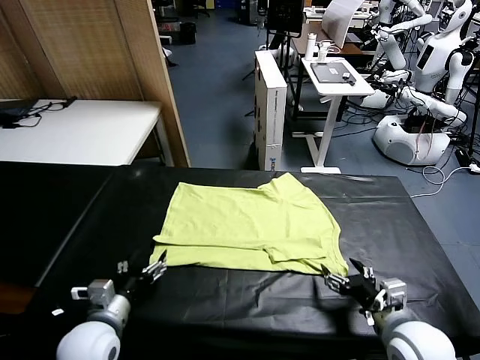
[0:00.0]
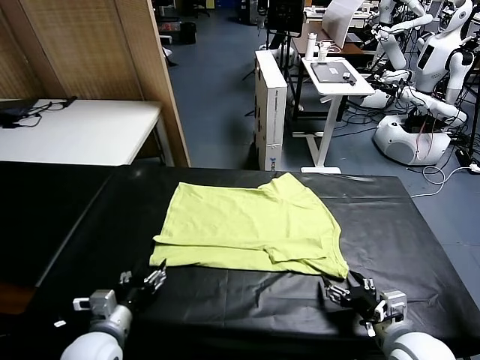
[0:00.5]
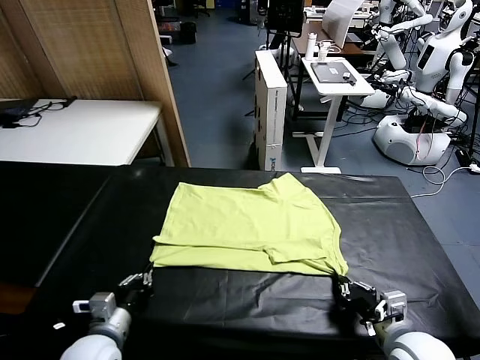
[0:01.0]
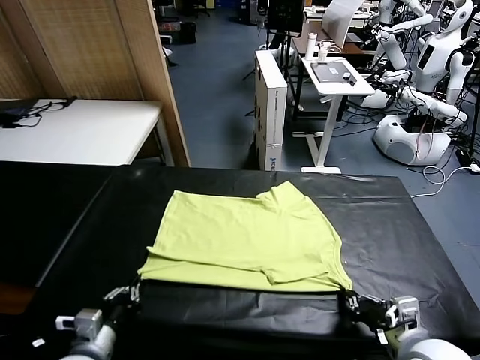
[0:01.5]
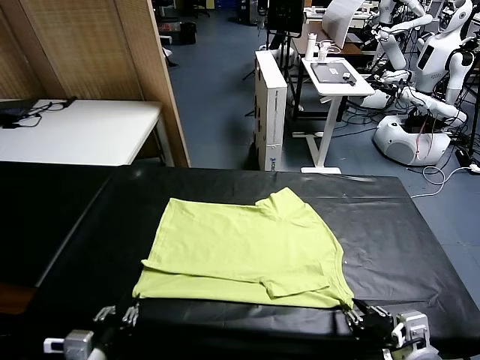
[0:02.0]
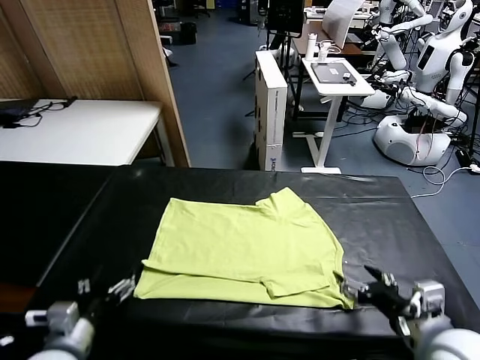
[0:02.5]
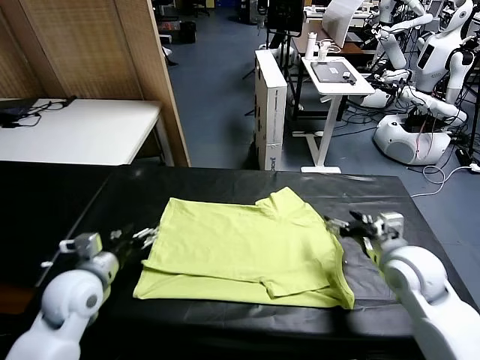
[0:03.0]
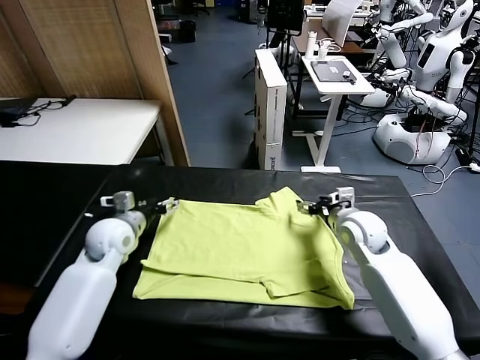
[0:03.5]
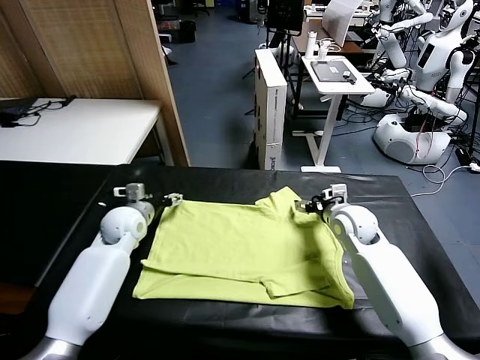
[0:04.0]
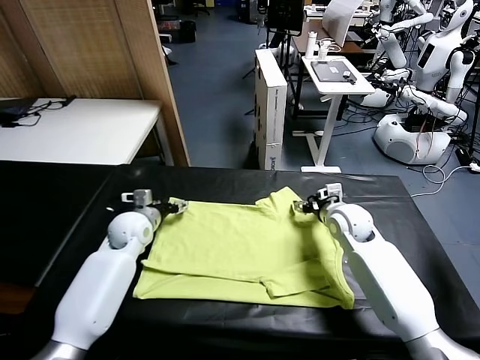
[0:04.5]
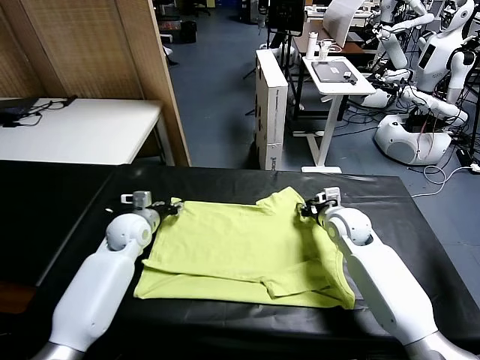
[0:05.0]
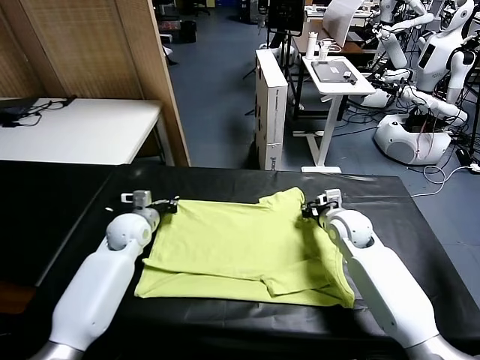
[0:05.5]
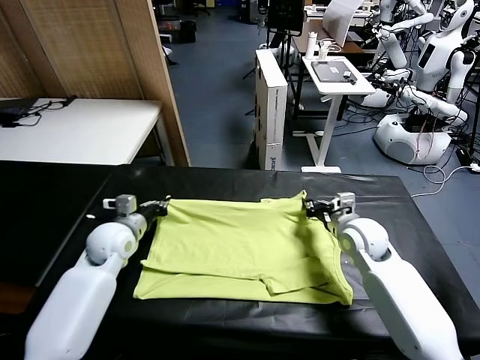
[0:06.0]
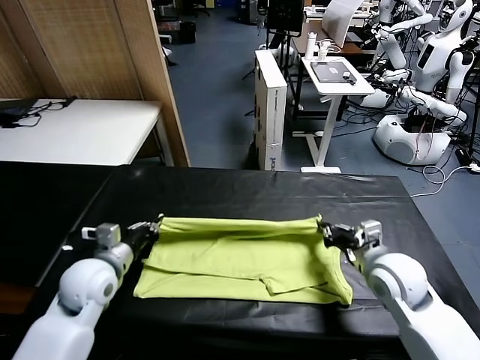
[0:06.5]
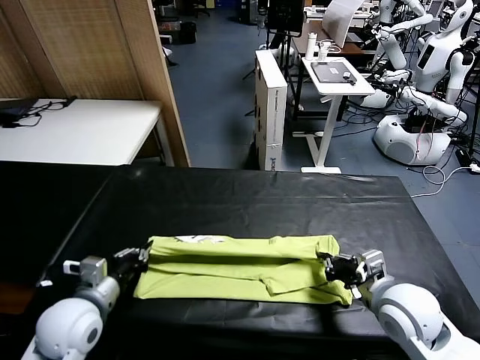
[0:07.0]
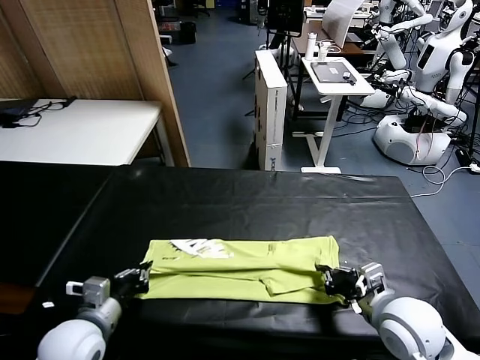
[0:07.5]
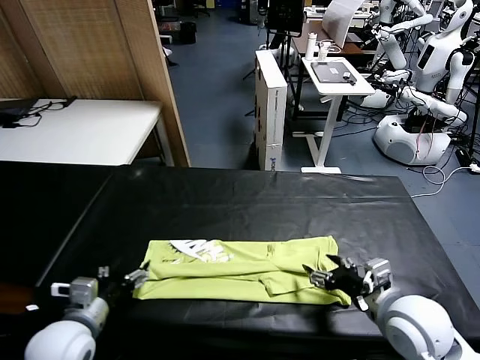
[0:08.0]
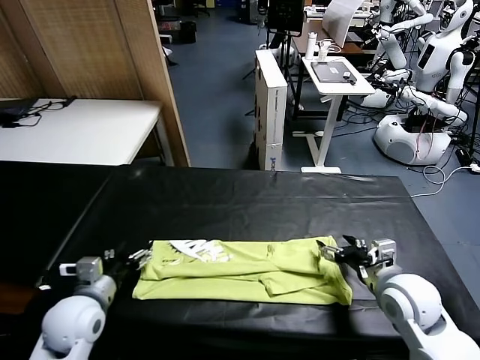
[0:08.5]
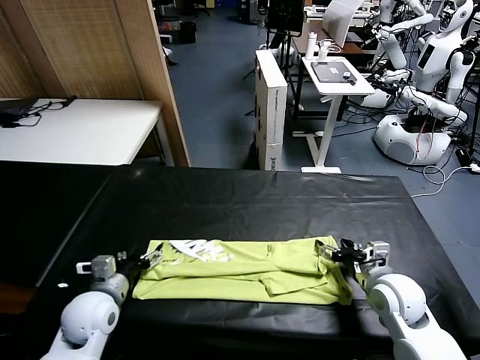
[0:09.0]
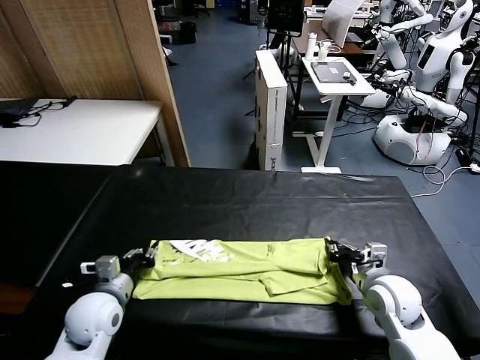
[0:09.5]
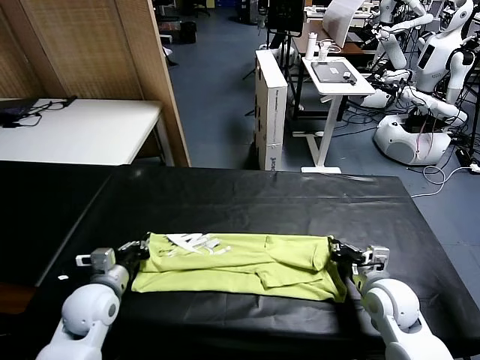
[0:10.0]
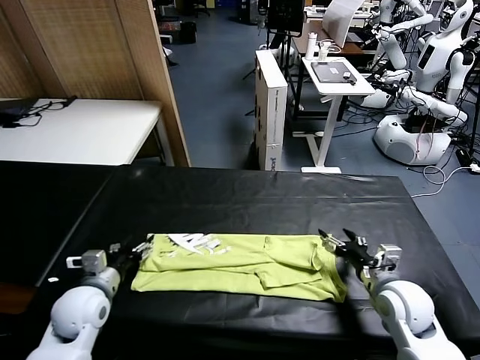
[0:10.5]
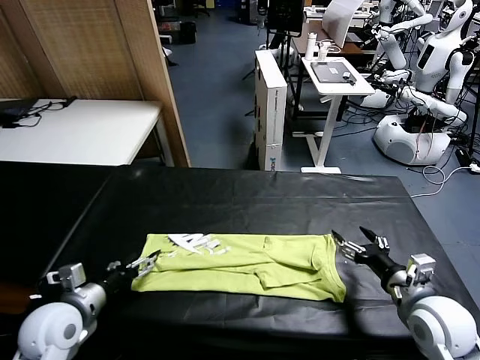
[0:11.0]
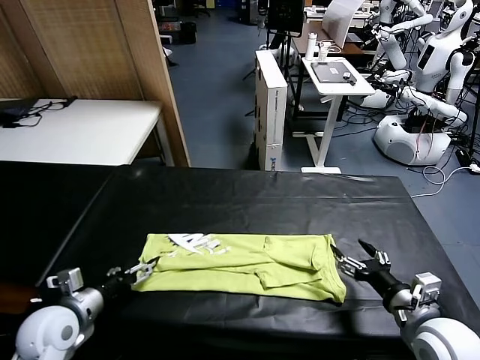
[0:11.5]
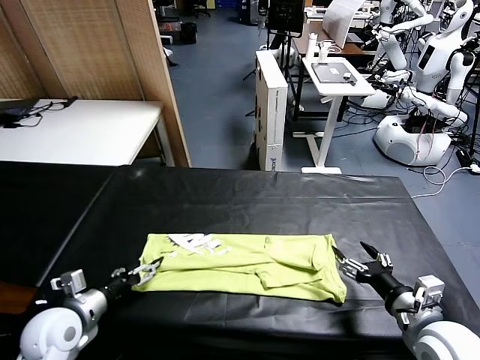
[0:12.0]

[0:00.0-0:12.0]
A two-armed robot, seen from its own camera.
Task of the whole recording: fold and organize the clothes.
Step, 0:00.0 to 0:02.0: Drag the clothes downward with both gripper.
Step, 0:02.5 to 0:05.5: use both grippers simultaneously to clamp the upper edge of the clothing fabric.
Step, 0:06.0 to 0:08.0: use both grippers to drag the upper edge of the fabric backward and fold it over the lower edge.
0:00.0 to 0:02.0: The left gripper heads backward, covering about 10 cm, and closes, then opens again, while the right gripper moves upward, about 10 cm, and closes, then opens again.
0:02.0 to 0:04.0: Both grippers travel together forward, about 35 cm.
0:04.0 to 0:06.0: Both grippers travel together backward, roughly 10 cm. The right gripper closes up. Meanwhile the left gripper closes up.
0:06.0 to 0:08.0: The left gripper heads backward, covering approximately 15 cm, and opens its fingers. The right gripper goes about 10 cm backward, and opens its fingers.
0:08.0 to 0:10.0: The left gripper goes about 10 cm forward, and closes up, while the right gripper goes roughly 10 cm downward, and closes its fingers.
0:10.0 to 0:12.0: The right gripper travels backward and upward by about 10 cm, and opens up; the left gripper is displaced backward by about 5 cm, and opens up.

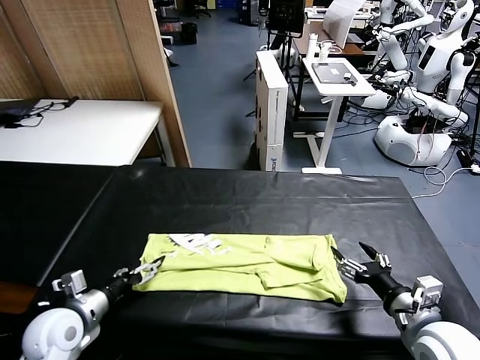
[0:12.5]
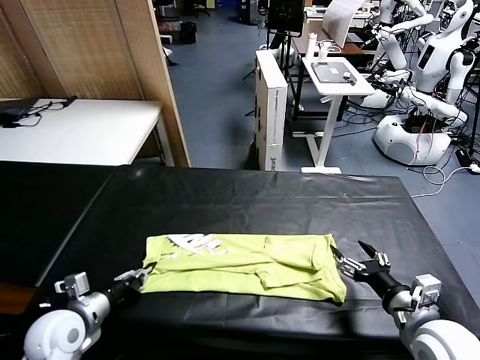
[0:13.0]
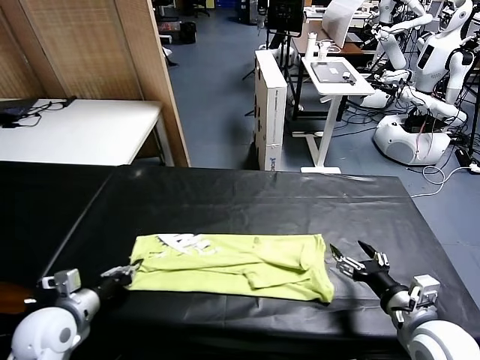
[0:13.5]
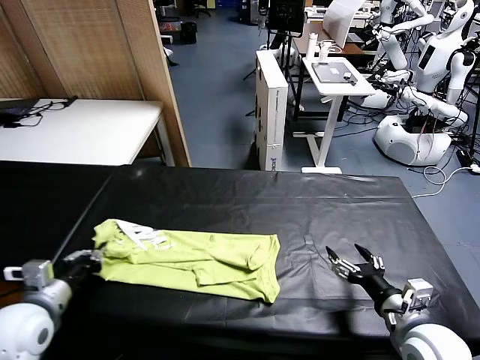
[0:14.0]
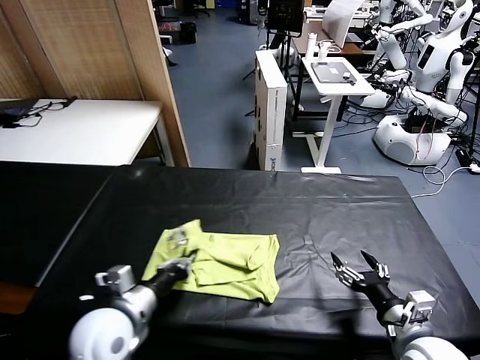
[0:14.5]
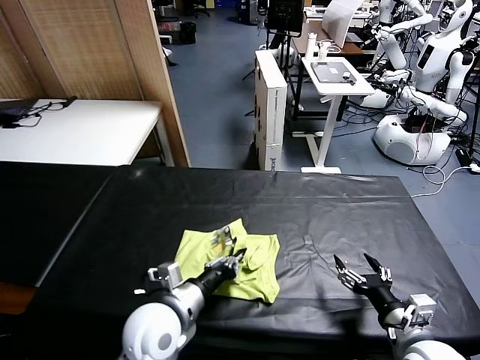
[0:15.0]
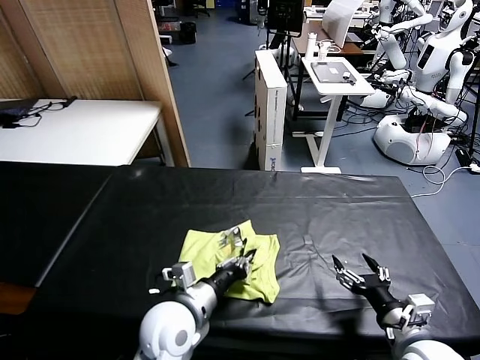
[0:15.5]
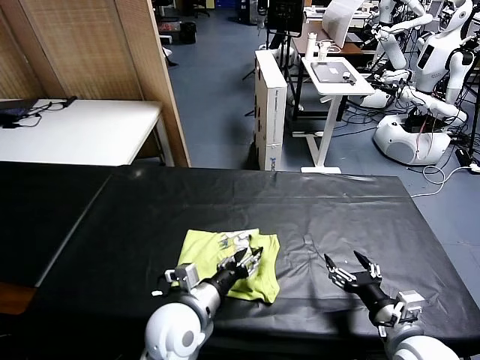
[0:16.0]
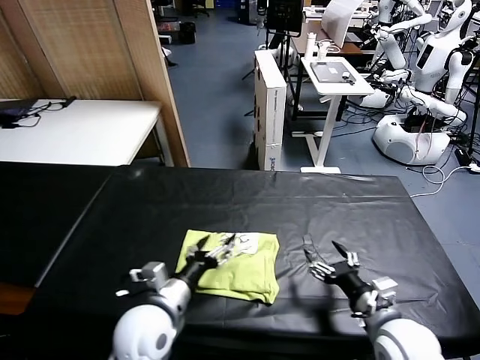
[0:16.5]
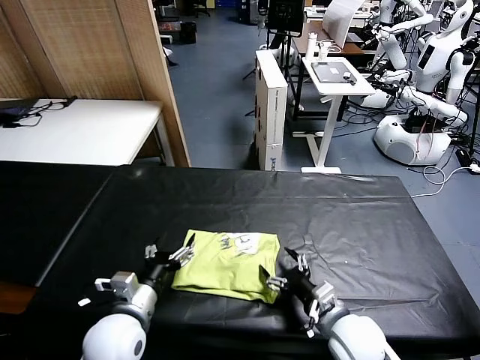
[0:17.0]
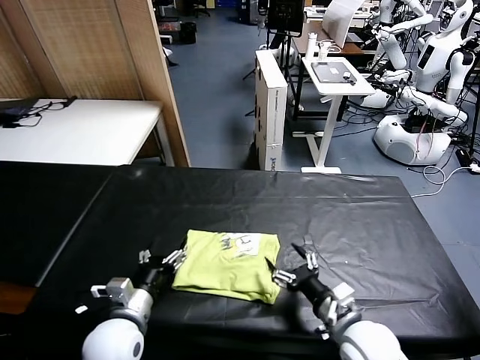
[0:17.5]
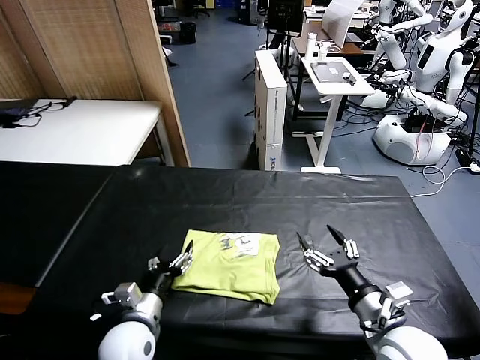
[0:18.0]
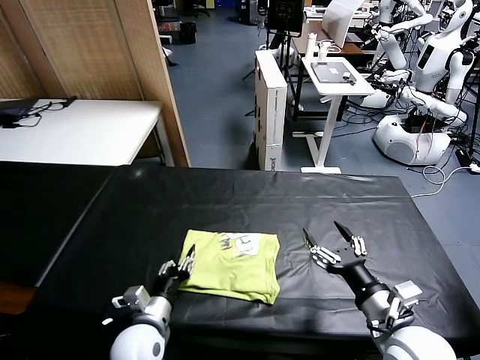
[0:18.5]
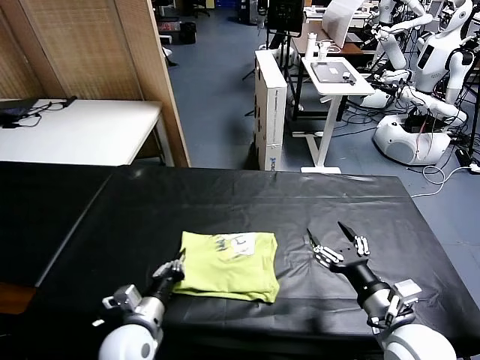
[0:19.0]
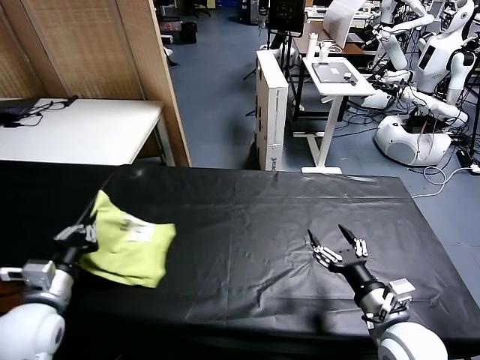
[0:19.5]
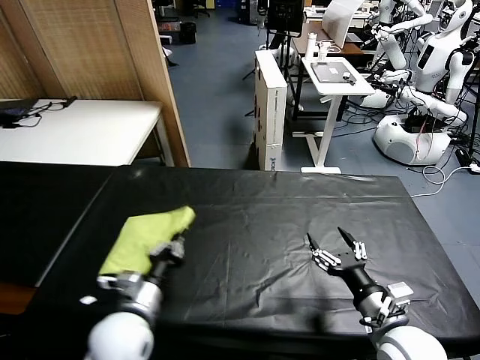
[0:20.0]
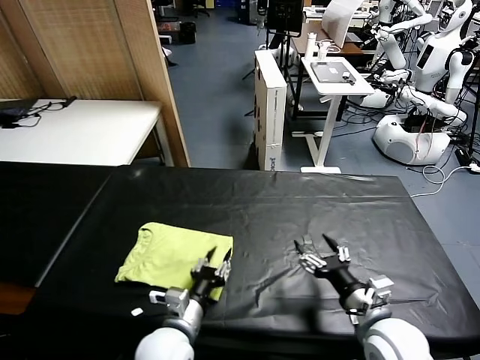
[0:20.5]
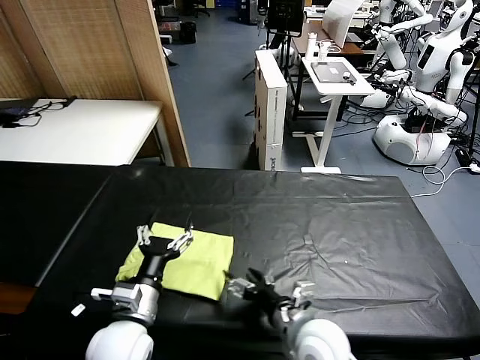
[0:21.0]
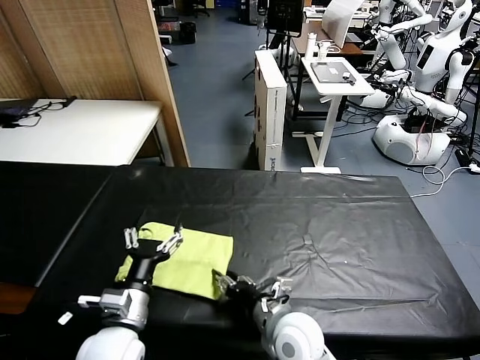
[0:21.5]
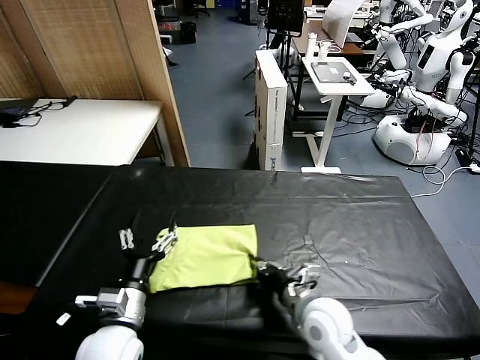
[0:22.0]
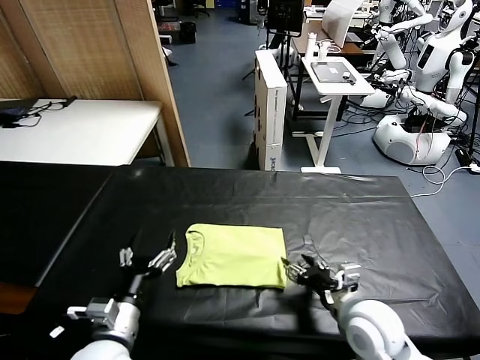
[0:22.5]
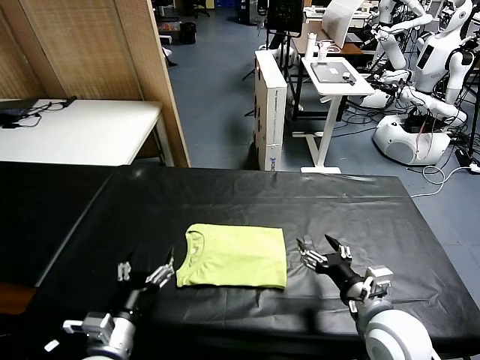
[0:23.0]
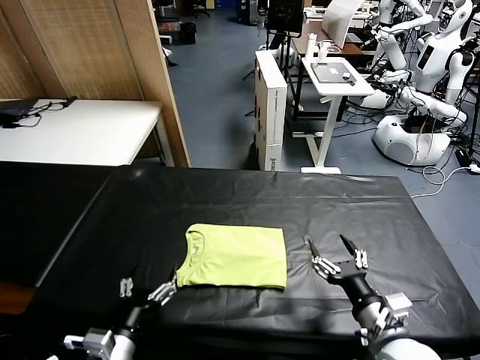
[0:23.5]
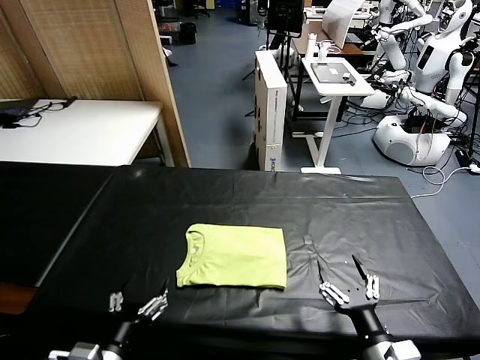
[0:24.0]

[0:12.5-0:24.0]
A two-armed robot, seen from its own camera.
Task of the whole recording: fold and organize the clothes.
Step, 0:13.5 to 0:16.0: use the left gripper to drag the left edge of the fabric to the left and folds it over the right edge.
Step, 0:16.5 to 0:20.5: Flip the folded clothes over with left gripper.
Step, 0:21.0 to 0:22.0: Drag the clothes to the center of the table.
0:12.5 to 0:14.5: The left gripper goes about 15 cm to the right, and closes its fingers.
0:14.5 to 0:16.5: The left gripper opens; the right gripper heads to the left, covering roughly 5 cm.
0:16.5 to 0:18.5: The left gripper goes some 10 cm downward, while the right gripper heads upward, covering roughly 5 cm.
0:18.5 to 0:20.0: The left gripper heads upward, covering about 10 cm, reaches roughly 15 cm to the left, then returns, and closes up.
0:20.0 to 0:22.0: The right gripper shifts approximately 15 cm to the left, forward and downward, and closes up. The left gripper reaches approximately 10 cm to the right, then returns, and opens.
0:22.0 to 0:24.0: The left gripper heads backward, covering approximately 10 cm, while the right gripper shifts about 15 cm backward and to the right, and opens.
